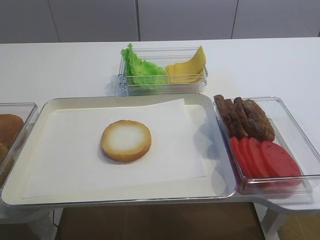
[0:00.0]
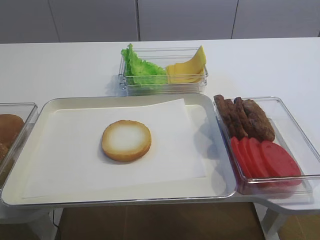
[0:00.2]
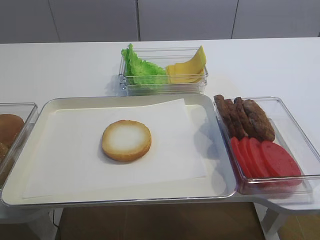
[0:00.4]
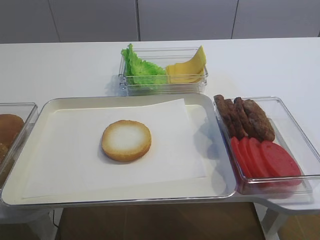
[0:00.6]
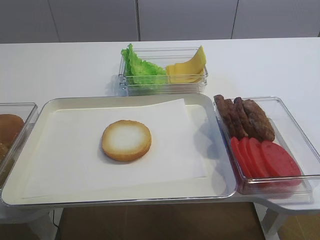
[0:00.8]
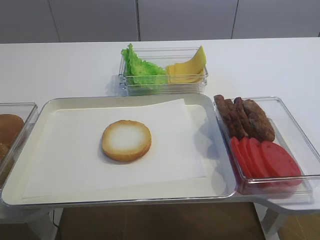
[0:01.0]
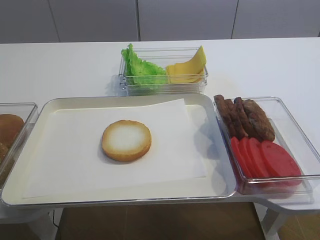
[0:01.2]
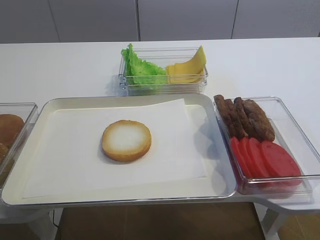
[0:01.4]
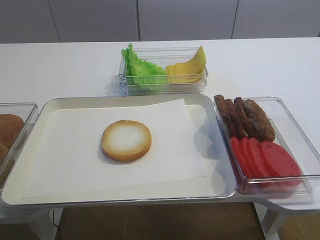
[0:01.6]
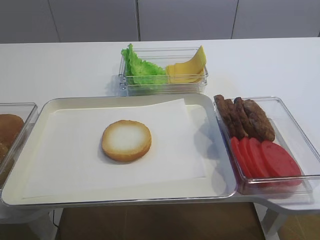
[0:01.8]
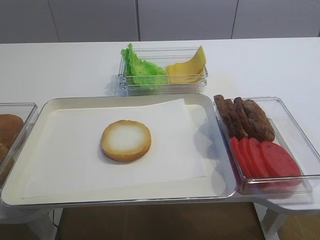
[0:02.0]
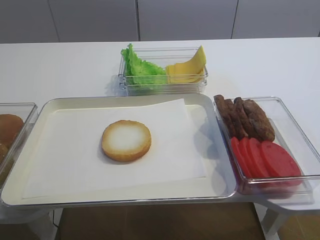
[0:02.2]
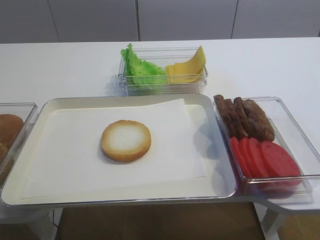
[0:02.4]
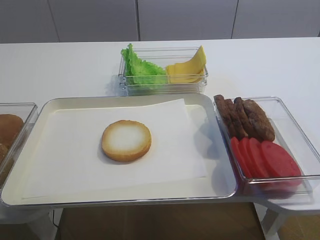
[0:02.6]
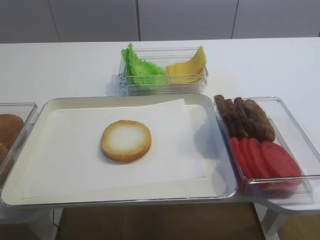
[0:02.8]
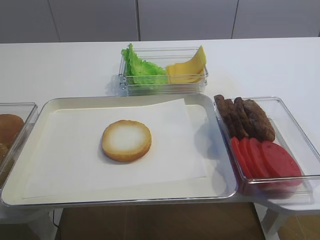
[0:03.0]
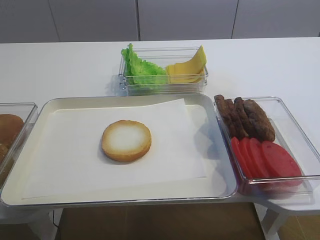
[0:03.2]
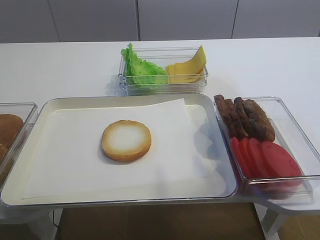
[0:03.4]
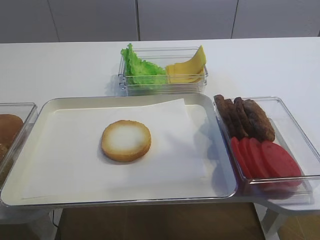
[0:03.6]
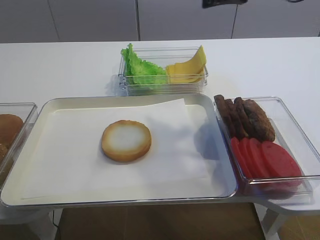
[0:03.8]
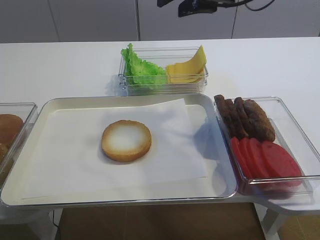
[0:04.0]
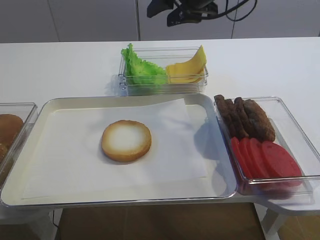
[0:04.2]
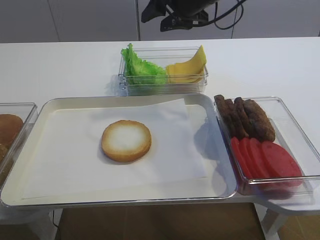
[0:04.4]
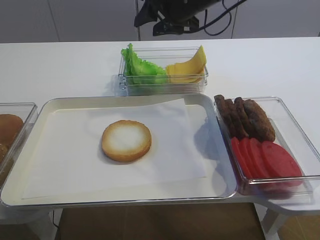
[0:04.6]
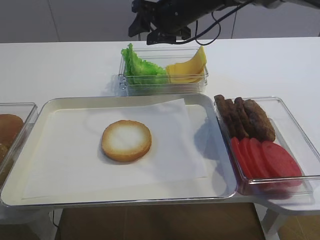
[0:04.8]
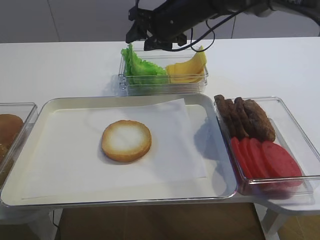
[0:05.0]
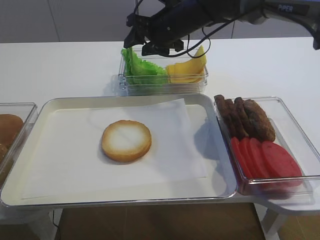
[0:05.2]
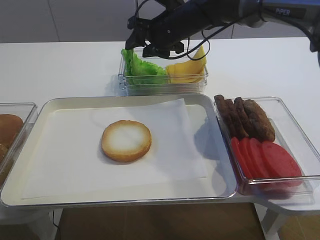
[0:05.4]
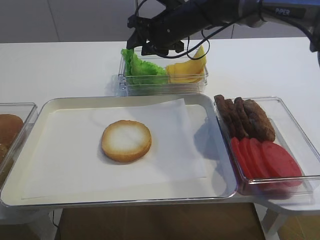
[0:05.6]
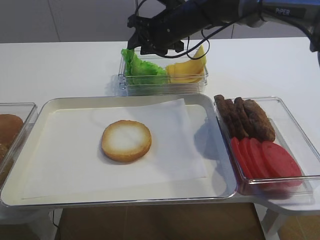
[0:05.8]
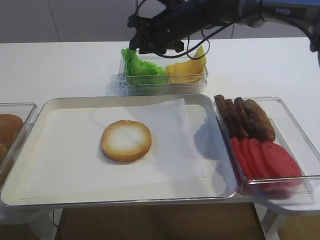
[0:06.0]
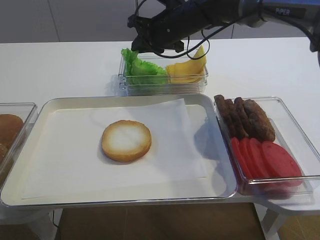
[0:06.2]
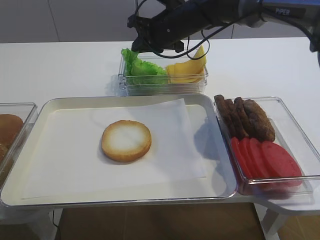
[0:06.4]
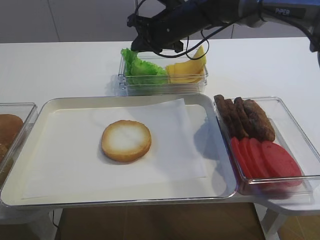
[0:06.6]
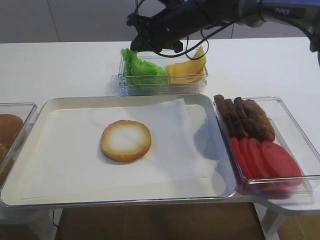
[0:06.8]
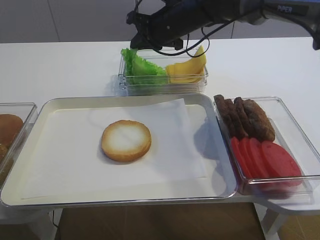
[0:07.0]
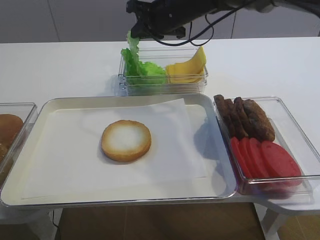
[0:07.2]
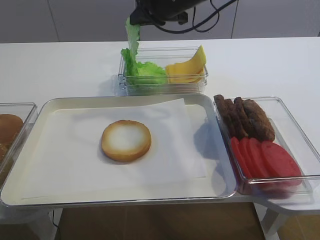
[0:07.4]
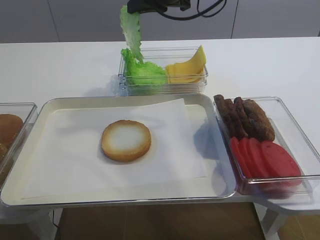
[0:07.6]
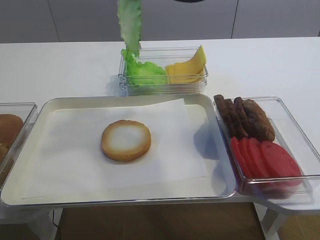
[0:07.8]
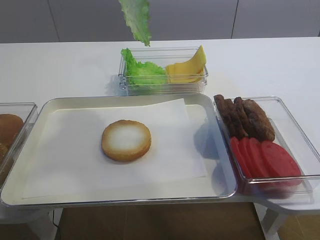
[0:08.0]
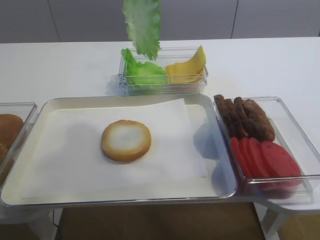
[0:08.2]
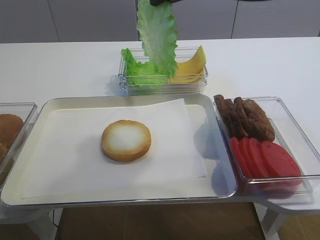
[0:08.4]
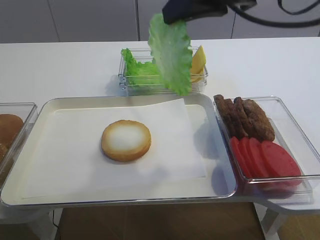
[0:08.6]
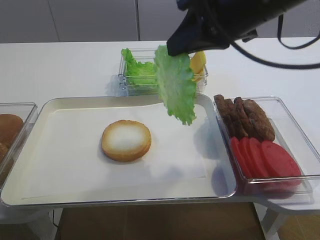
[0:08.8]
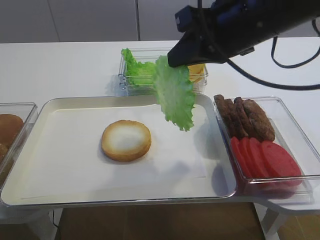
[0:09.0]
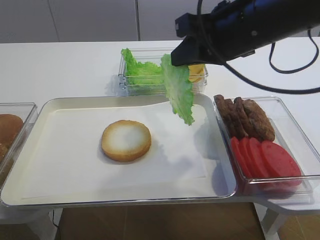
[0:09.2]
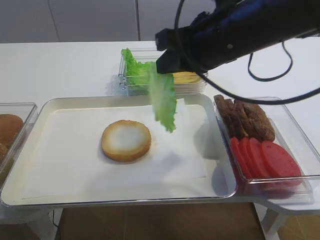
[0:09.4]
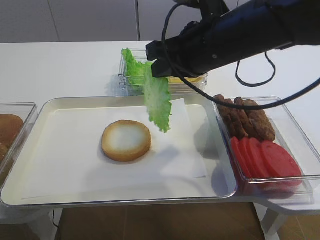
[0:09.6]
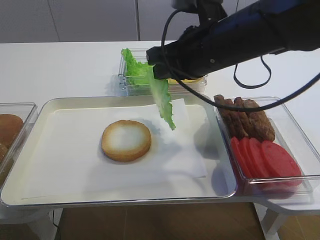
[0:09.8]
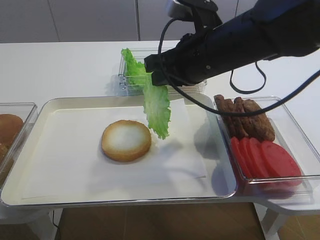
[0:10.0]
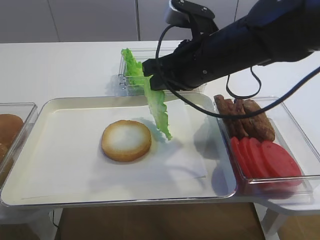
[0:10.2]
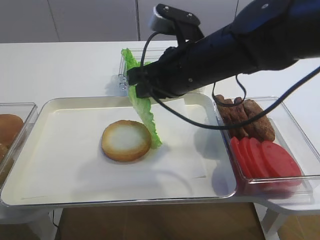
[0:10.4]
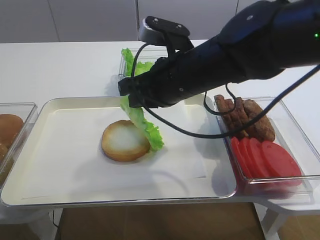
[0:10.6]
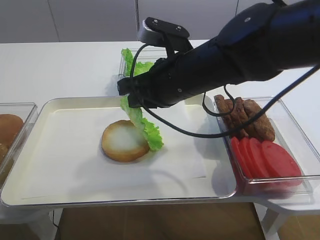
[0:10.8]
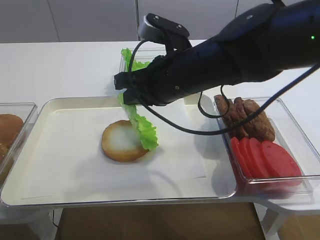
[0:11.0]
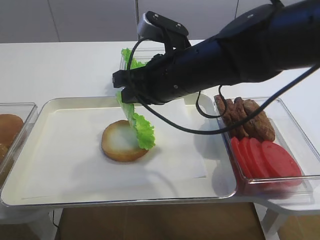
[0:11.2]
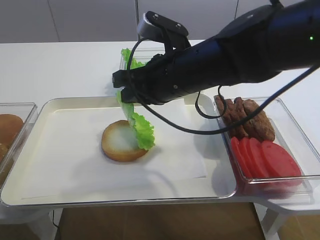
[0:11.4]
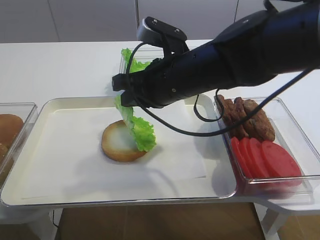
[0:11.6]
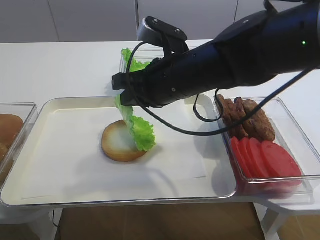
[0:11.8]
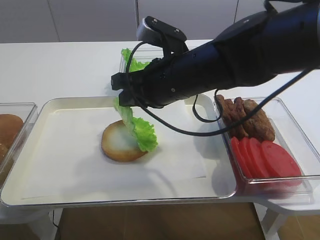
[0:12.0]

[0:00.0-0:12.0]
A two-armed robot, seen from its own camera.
Step, 0:00.0 to 0:07.0: Pick up the lettuce leaf with the right gripper.
0:03.0 to 0:04.4: The right gripper heads forward and to the left, covering about 35 cm.
0:04.4 to 0:06.0: The right gripper travels downward by some 5 cm, and closes up.
0:06.0 to 0:07.6: The right gripper goes some 10 cm upward, and closes.
0:07.6 to 0:09.0: The right gripper goes roughly 20 cm backward and to the right.
0:09.0 to 0:10.4: The right gripper moves downward and to the left, about 10 cm.
0:10.4 to 0:12.0: There are only small adjustments of the grippers.

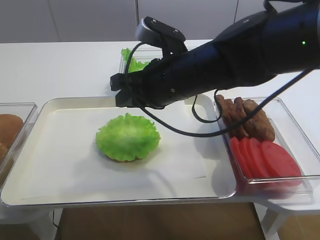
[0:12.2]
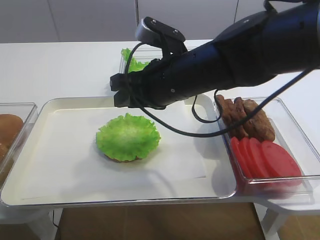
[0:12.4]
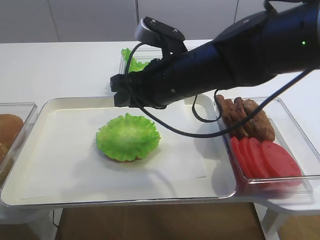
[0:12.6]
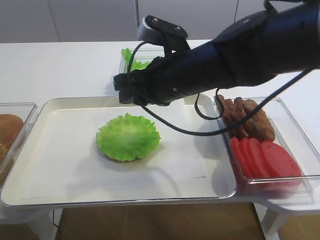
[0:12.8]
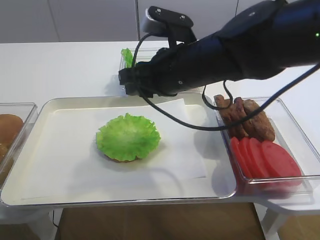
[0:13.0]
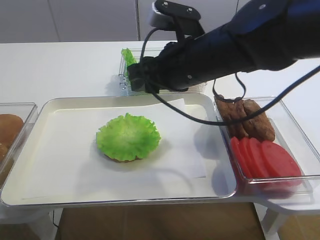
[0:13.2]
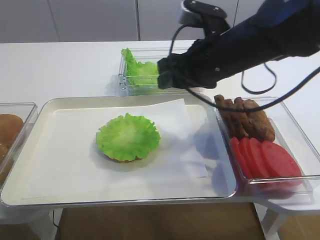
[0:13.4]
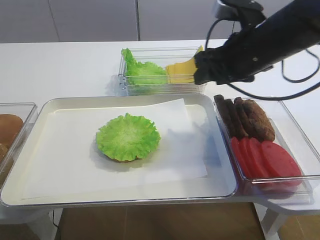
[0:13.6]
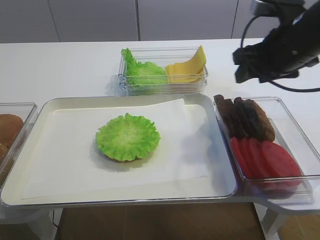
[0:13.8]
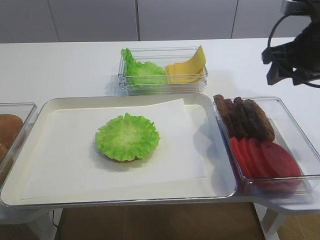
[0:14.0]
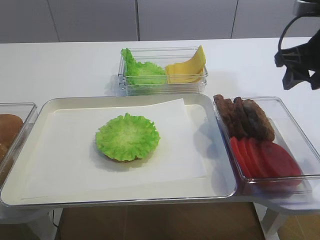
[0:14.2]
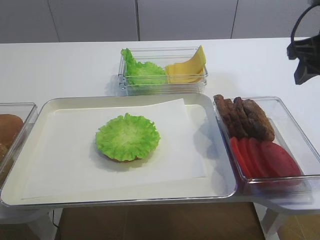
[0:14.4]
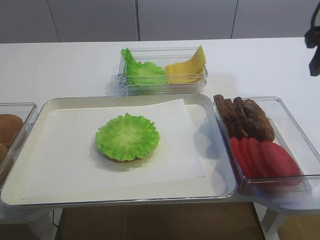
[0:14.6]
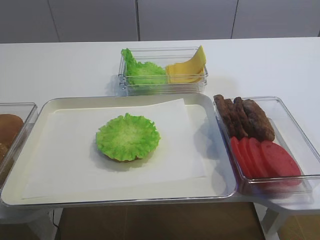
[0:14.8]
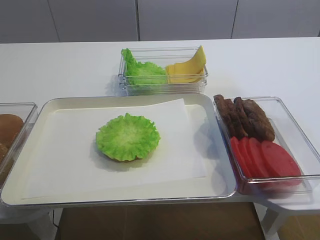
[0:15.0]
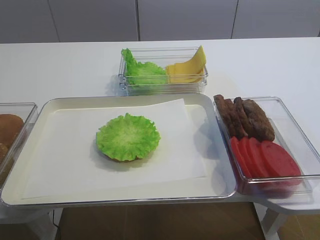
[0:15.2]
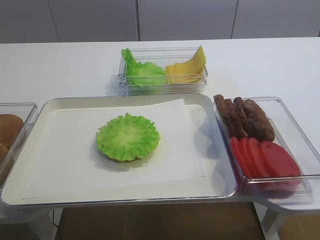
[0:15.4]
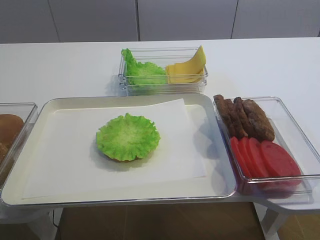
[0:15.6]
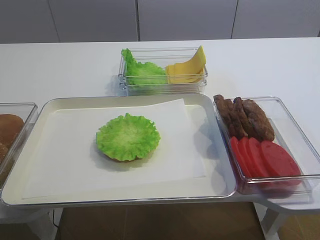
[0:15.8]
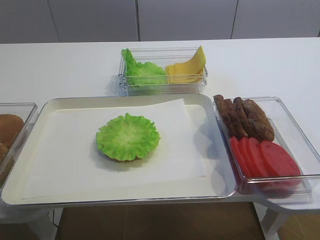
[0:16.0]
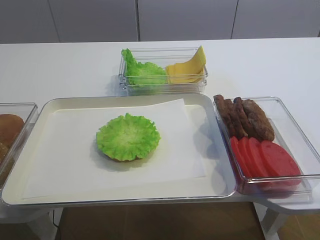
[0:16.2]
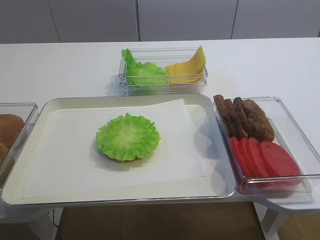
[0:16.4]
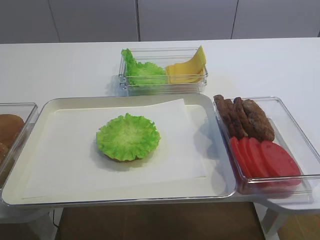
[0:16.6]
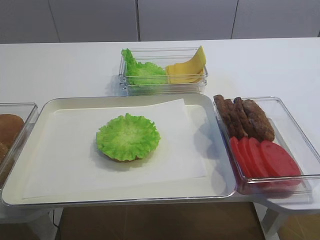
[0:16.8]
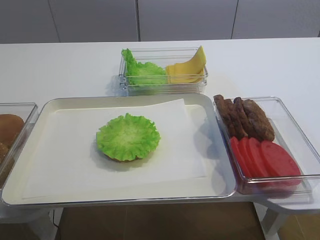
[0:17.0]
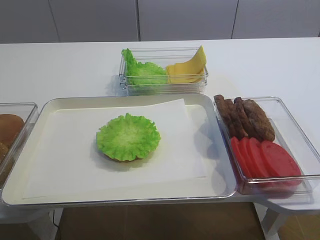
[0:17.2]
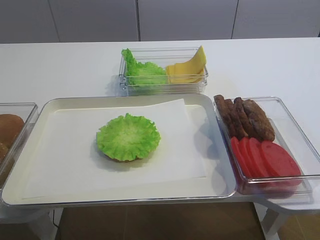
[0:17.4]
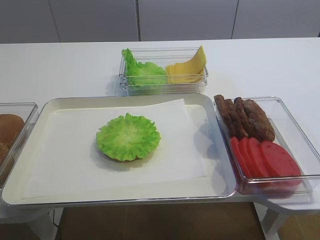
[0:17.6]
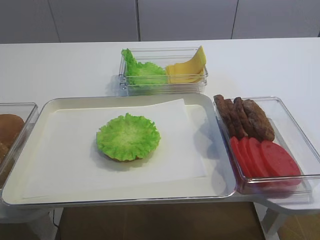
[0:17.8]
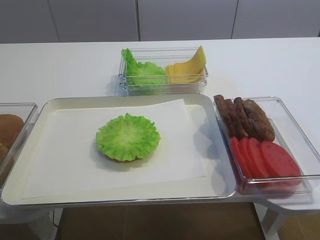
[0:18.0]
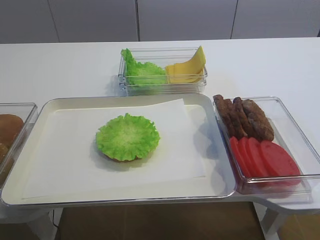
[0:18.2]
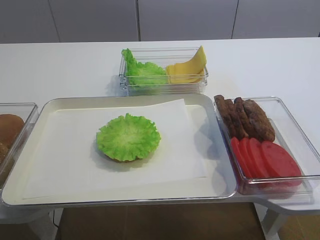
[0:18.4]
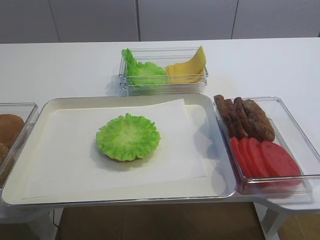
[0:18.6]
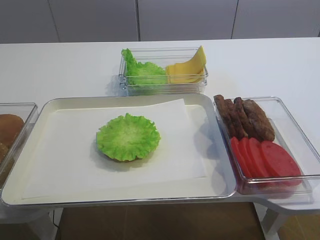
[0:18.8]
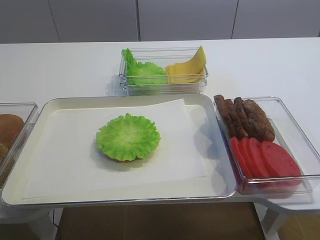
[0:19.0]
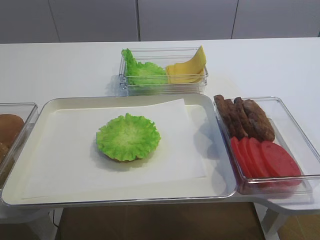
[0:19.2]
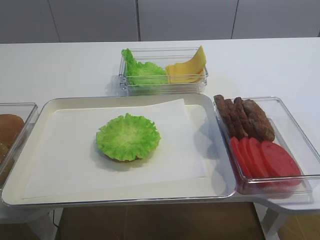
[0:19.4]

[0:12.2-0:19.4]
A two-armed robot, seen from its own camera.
0:12.2 to 0:13.6: The right gripper heads to the right, covering about 10 cm, and opens up.
0:13.6 to 0:15.0: The right gripper goes approximately 20 cm backward, to the right and upward.

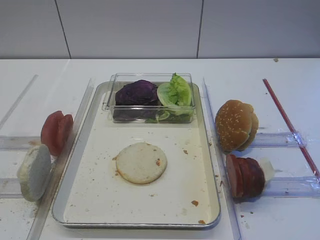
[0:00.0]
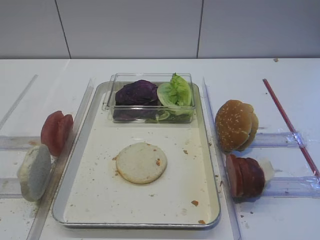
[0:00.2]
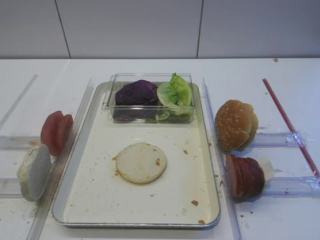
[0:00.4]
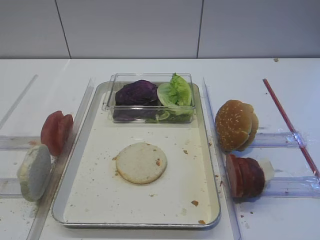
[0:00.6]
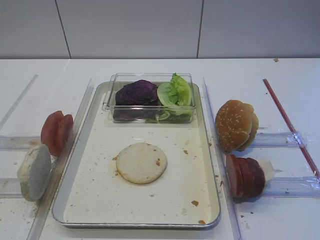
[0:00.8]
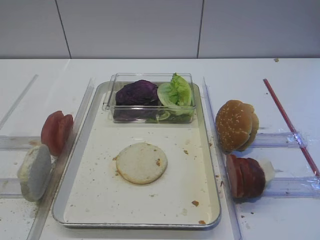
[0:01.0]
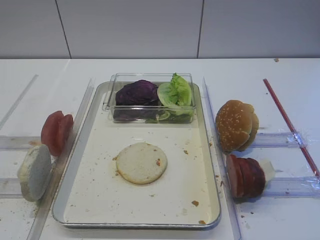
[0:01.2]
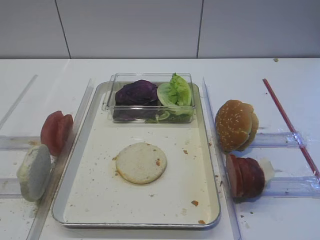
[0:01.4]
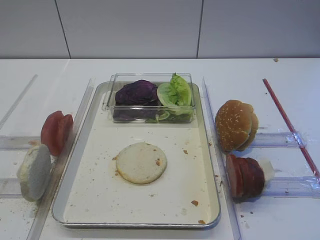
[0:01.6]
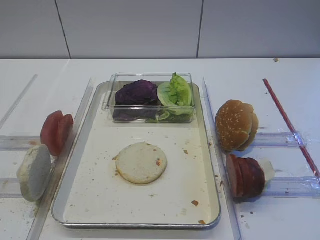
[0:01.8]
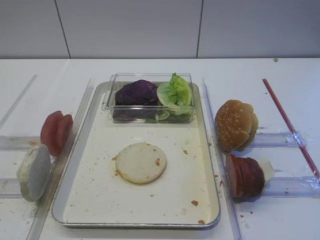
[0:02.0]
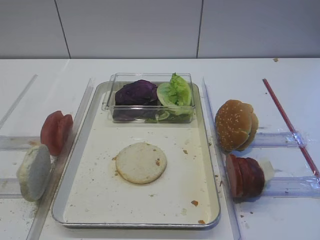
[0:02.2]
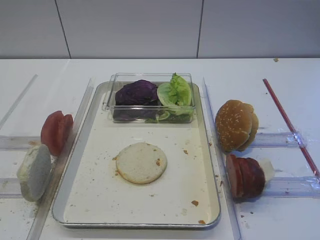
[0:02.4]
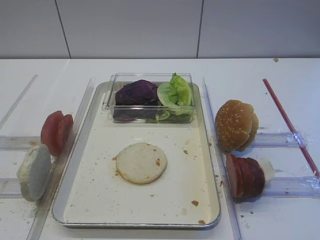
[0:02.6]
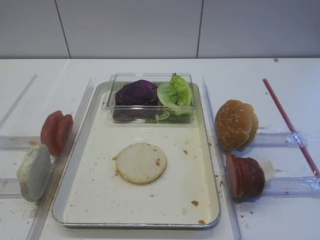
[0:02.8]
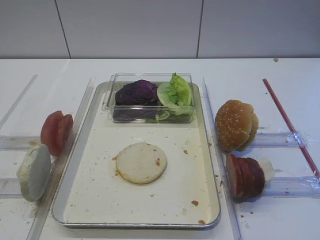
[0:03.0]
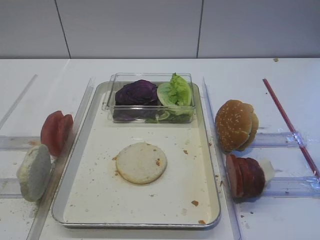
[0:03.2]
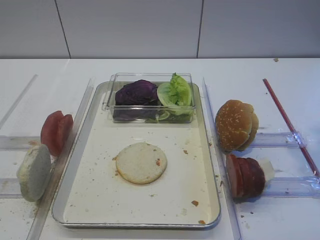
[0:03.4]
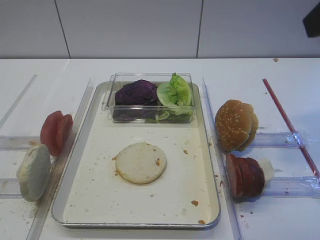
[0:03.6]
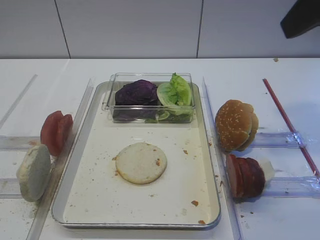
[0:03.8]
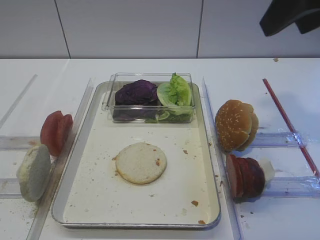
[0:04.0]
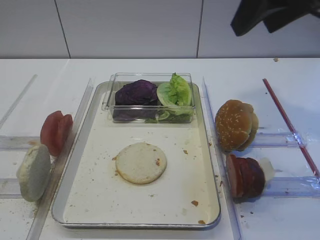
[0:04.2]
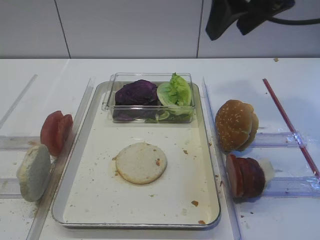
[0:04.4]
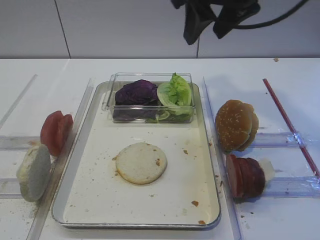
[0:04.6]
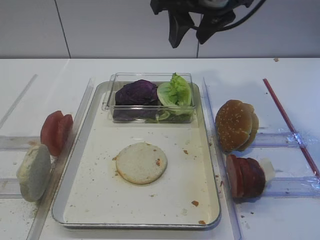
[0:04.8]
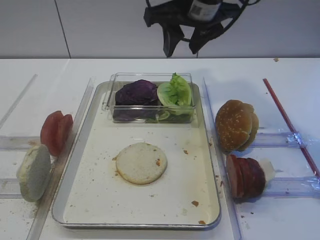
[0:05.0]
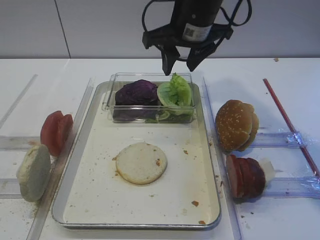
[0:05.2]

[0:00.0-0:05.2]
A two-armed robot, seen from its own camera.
0:03.4 to 0:05.2: The right gripper moves forward, to the left and downward, about 30 cm.
